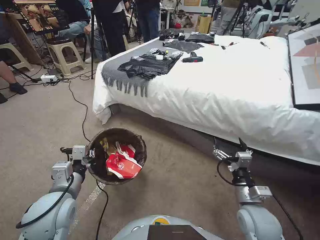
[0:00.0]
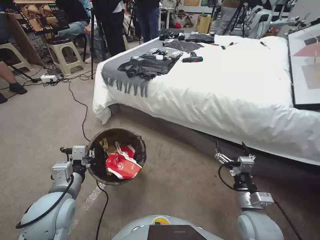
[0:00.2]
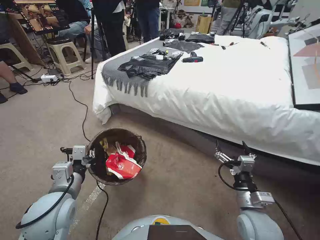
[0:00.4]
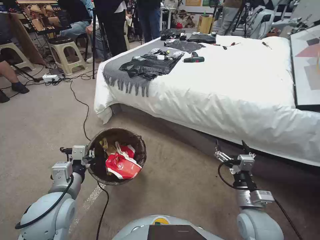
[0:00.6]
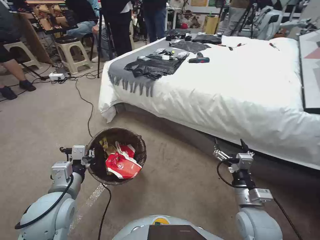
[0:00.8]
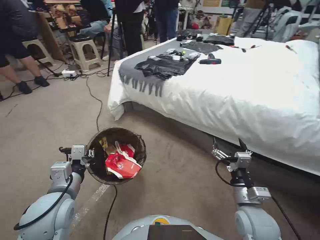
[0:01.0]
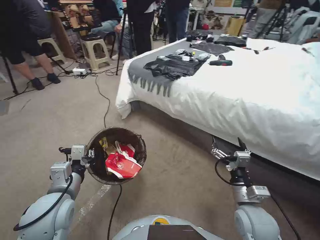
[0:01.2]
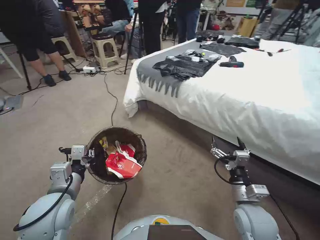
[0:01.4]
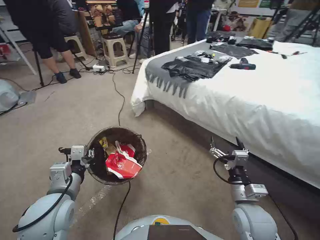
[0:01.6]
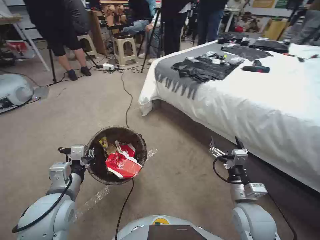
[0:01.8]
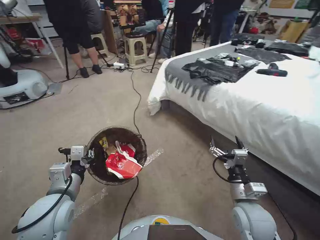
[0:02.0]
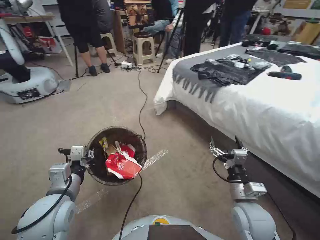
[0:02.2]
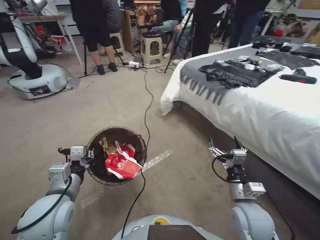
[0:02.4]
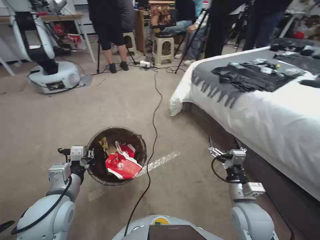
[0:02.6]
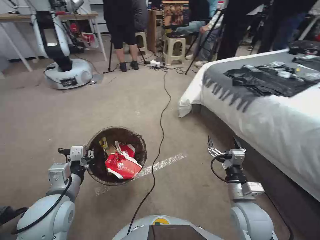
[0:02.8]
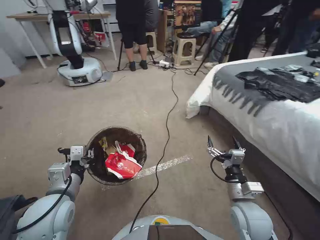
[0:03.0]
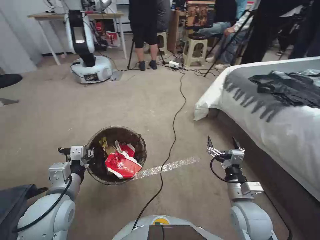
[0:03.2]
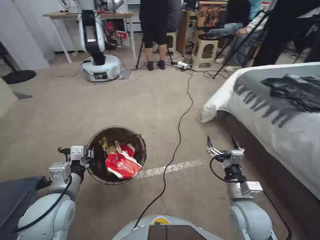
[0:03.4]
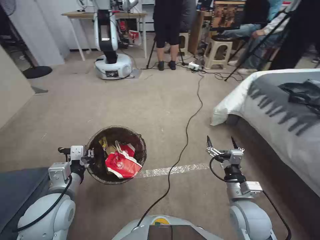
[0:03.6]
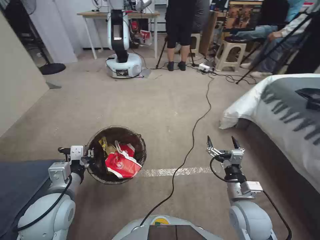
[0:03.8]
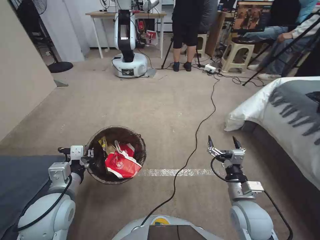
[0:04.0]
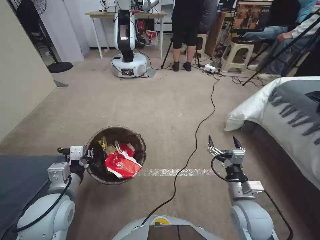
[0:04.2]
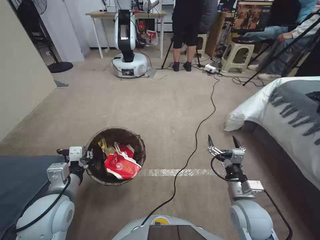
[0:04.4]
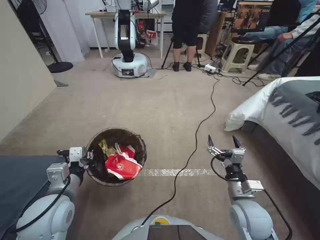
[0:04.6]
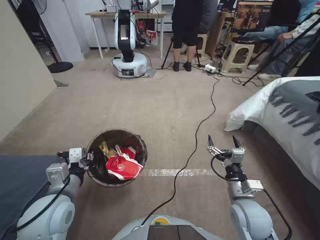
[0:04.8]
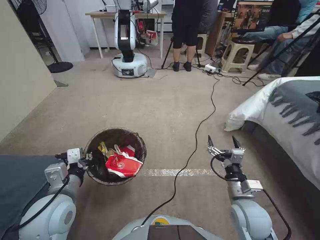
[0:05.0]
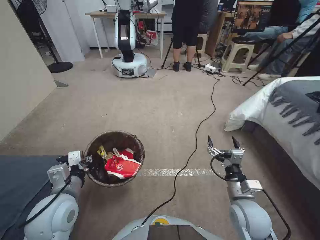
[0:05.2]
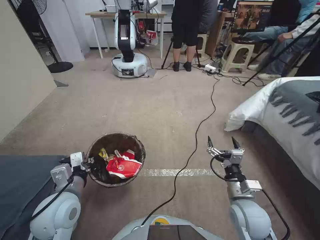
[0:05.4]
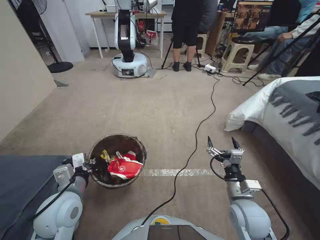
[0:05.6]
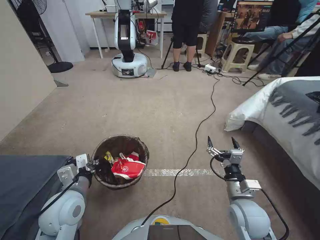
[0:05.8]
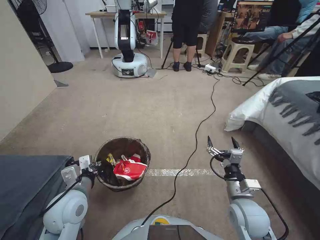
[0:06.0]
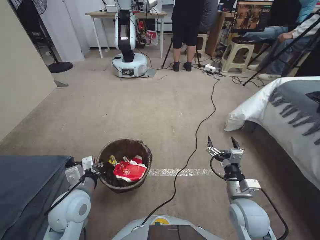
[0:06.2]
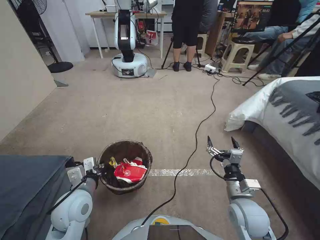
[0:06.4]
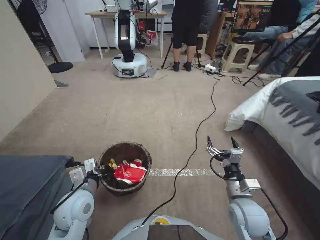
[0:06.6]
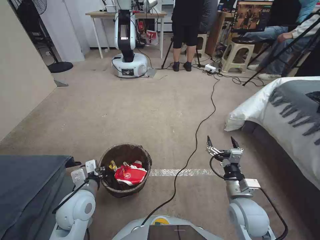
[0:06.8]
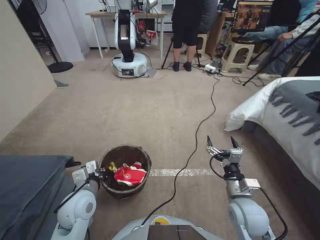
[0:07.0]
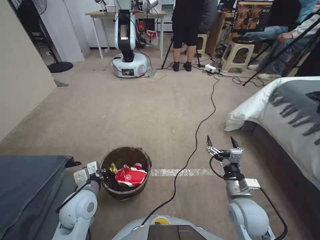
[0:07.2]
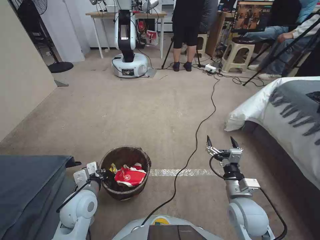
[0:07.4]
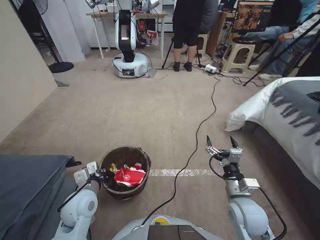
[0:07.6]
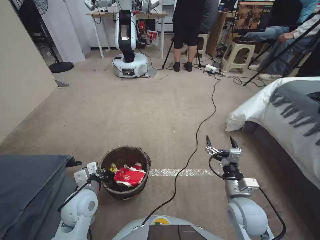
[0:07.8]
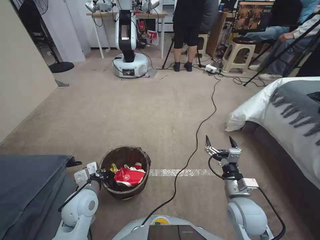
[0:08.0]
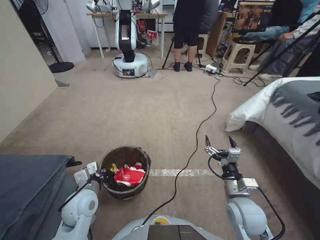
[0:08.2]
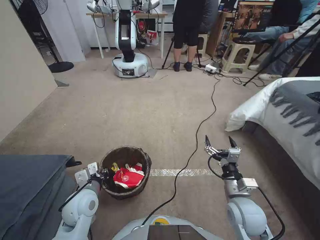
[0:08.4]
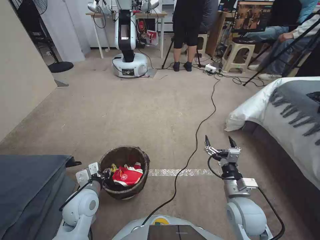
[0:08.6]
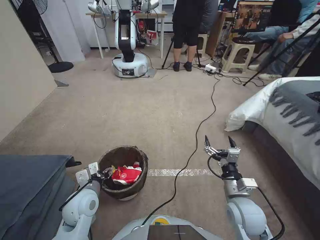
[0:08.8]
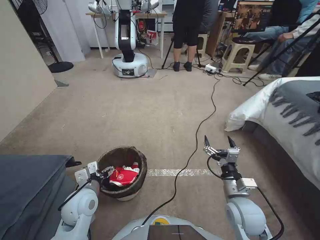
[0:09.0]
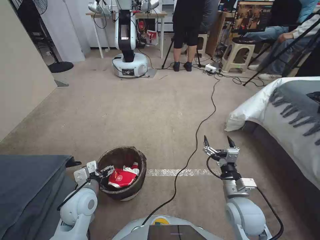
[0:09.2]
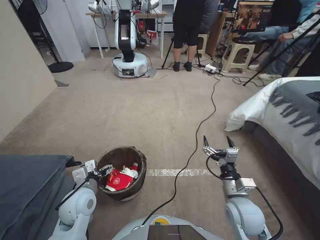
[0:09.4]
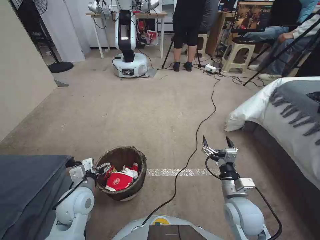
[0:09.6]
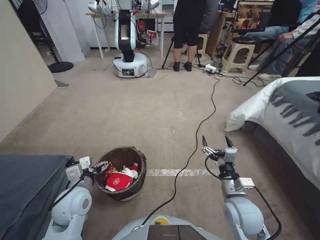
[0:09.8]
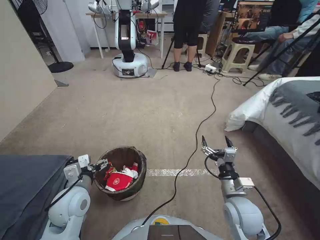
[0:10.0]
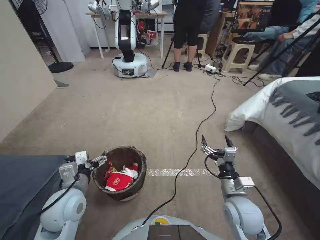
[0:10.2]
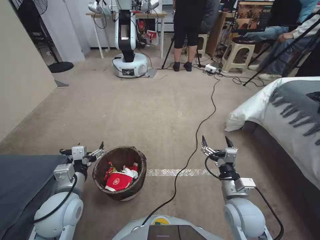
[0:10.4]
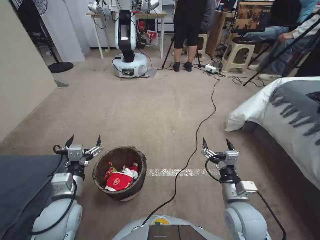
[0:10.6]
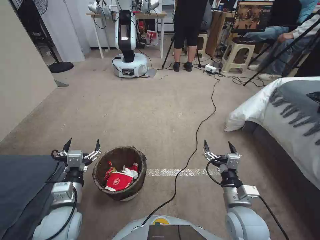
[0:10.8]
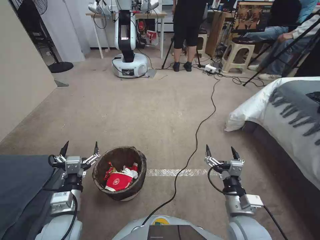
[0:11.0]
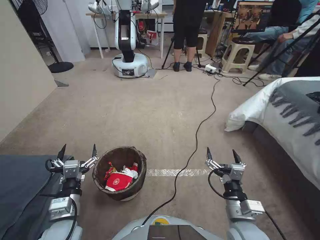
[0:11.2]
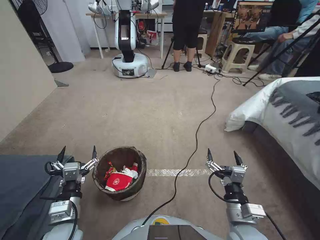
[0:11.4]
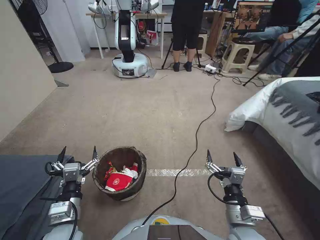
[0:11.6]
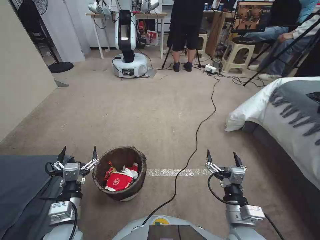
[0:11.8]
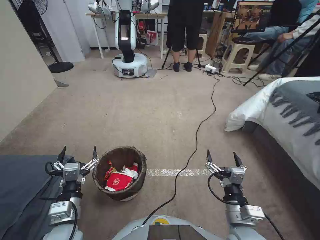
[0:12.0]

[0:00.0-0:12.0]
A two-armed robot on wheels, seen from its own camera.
Task of the whole recording: Pick up the trash bin, then pick up the garbage from the floor and place it into the trash bin.
0:06.0 to 0:07.6: The left gripper moves downward, some 5 cm.
0:07.6 to 0:09.0: The left gripper opens up.
0:09.0 to 0:10.4: The left gripper is displaced upward by about 5 cm.
0:10.4 to 0:12.0: The grippers both shift backward by some 5 cm.
